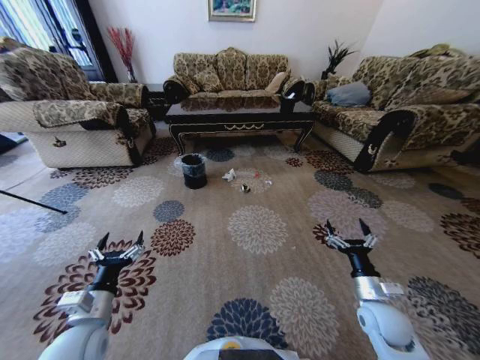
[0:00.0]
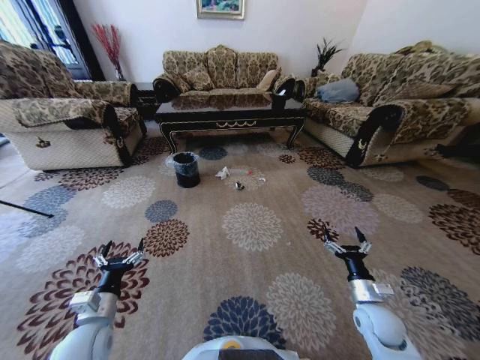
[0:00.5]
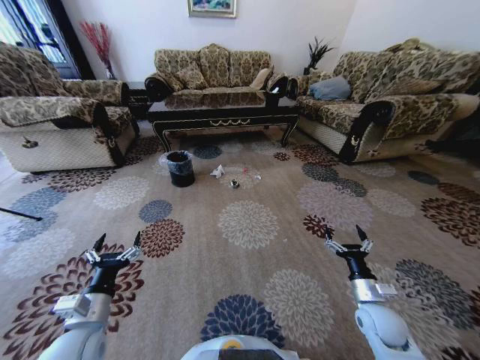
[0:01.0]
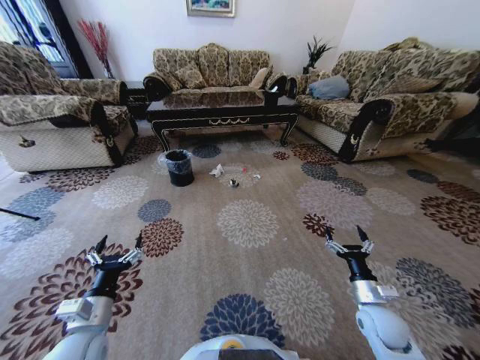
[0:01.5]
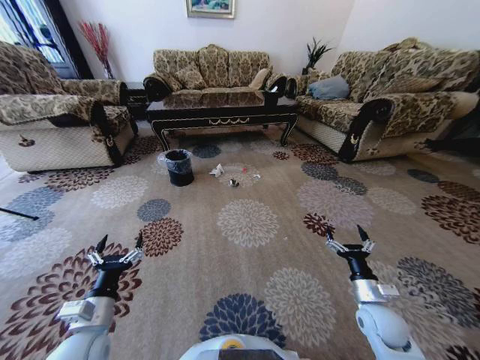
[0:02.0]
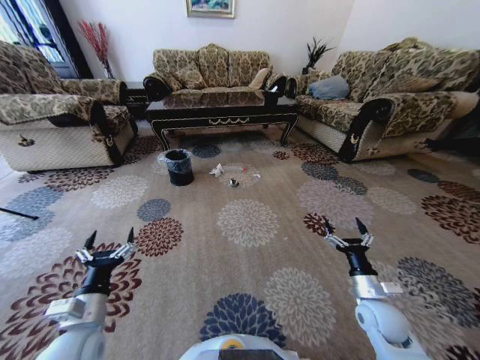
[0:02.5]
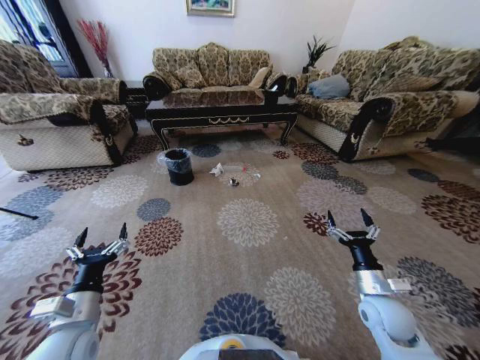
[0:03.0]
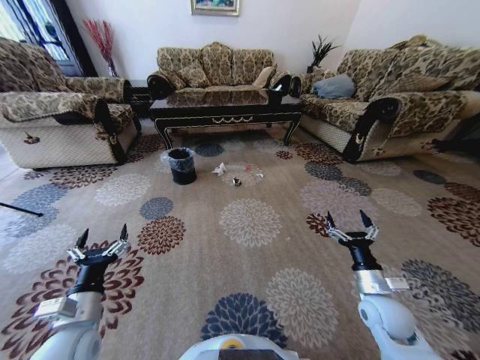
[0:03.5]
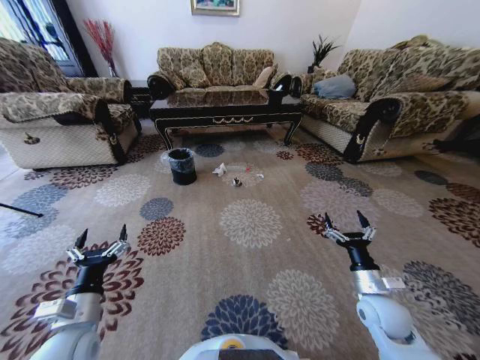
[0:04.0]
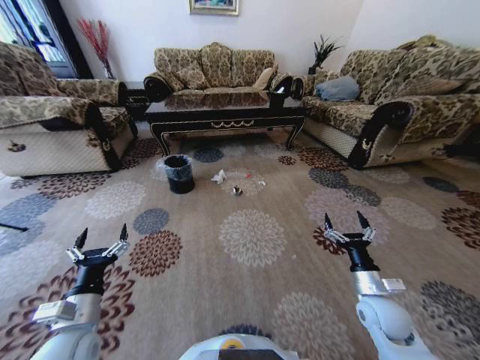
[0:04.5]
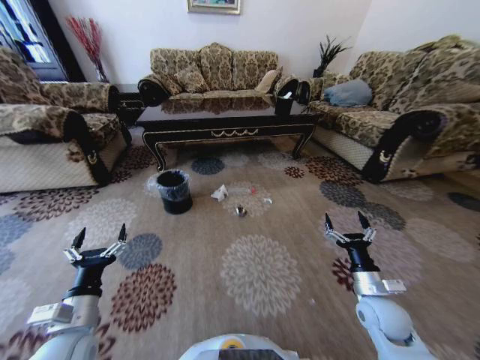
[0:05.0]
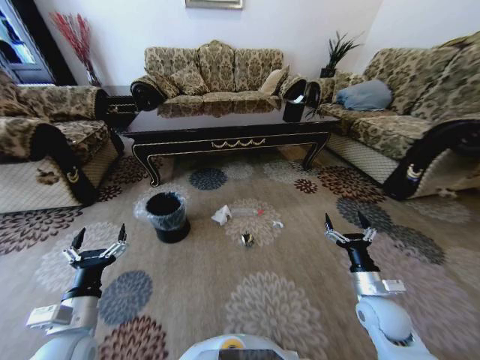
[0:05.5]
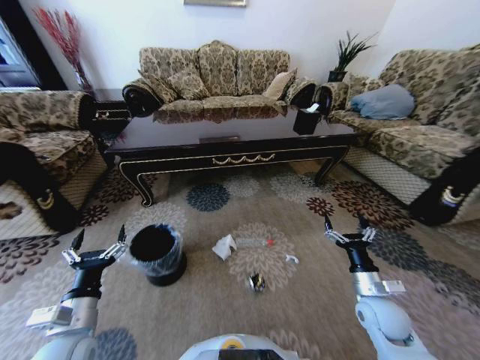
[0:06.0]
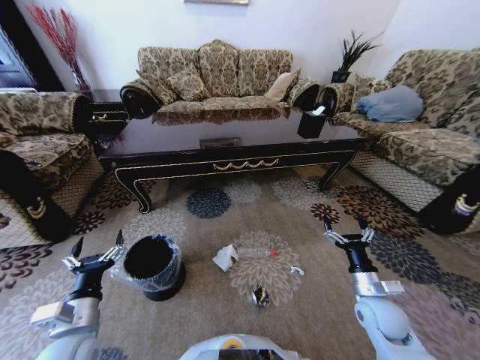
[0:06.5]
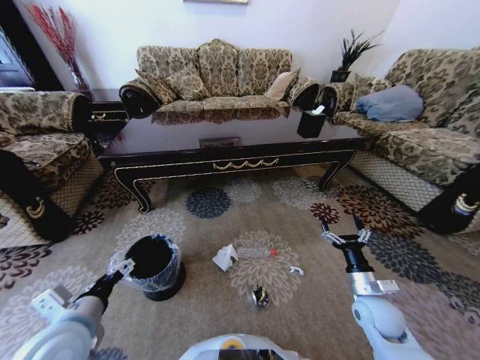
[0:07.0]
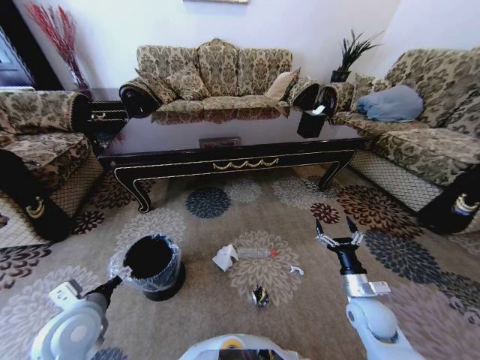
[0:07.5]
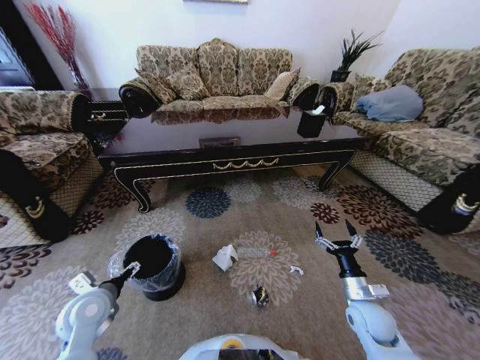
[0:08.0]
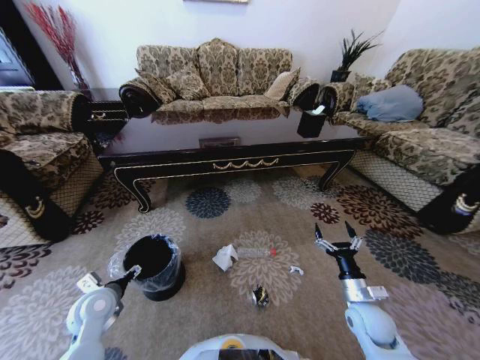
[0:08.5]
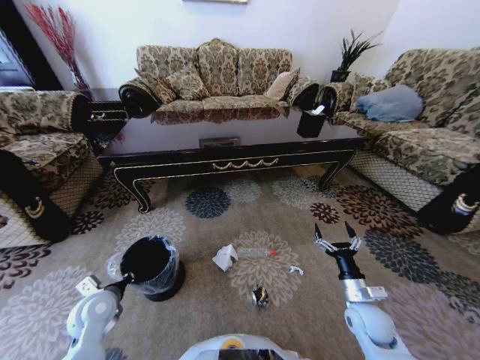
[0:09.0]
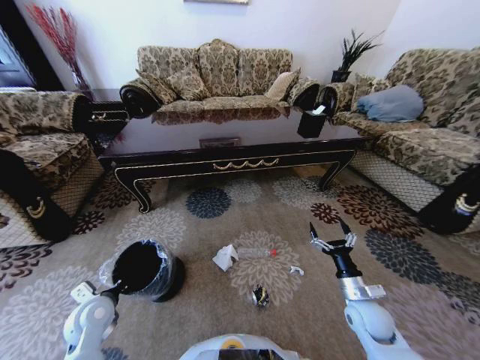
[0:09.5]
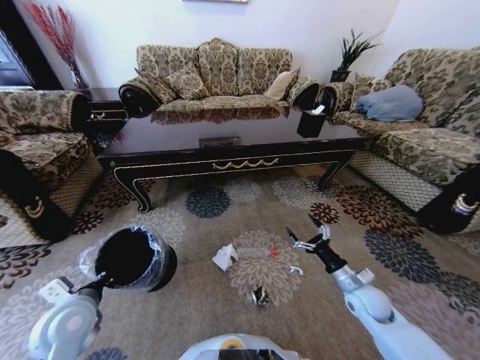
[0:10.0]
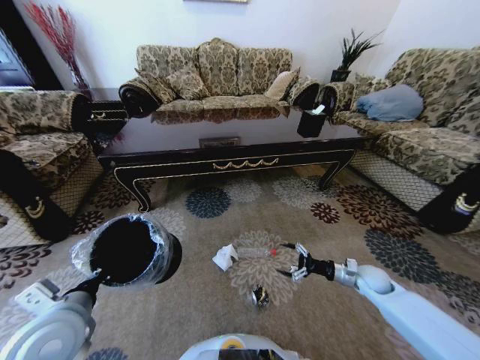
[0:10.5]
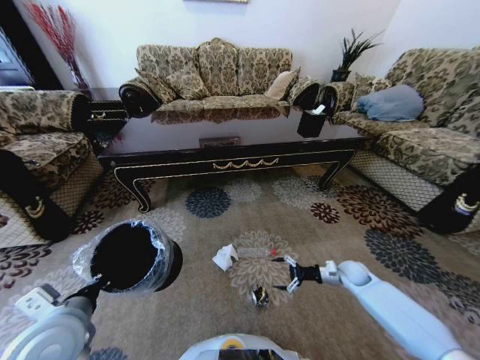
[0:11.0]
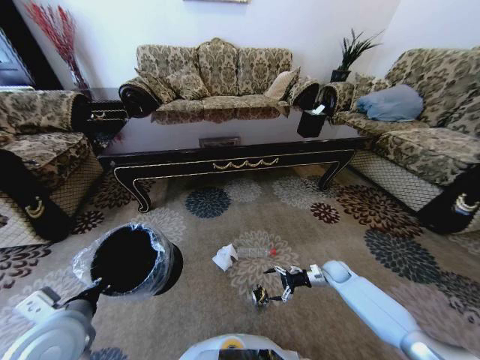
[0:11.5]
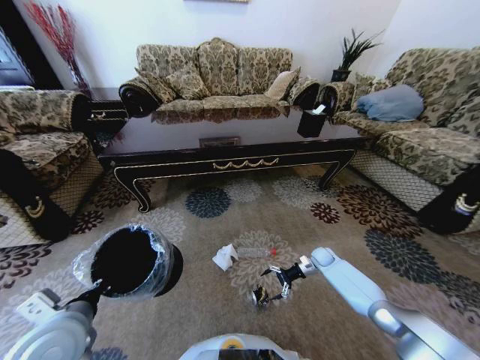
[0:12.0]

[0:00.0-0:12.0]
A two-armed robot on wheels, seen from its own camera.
Task of the whole recording: Move to the front of the table and pick up the trash from the floor, then place it into the trash bin.
0:06.0 to 0:08.0: The left gripper heads forward, covering roughly 10 cm.
0:08.0 to 0:10.0: The left gripper changes place by approximately 5 cm, and closes its fingers.
0:10.0 to 0:12.0: The left gripper shifts by some 5 cm. Meanwhile the right gripper shifts some 25 cm forward and downward.

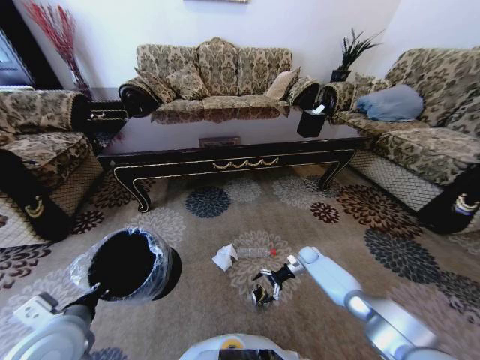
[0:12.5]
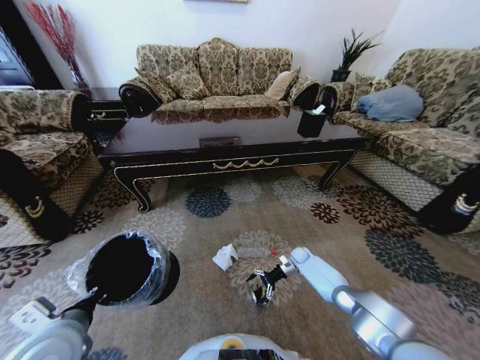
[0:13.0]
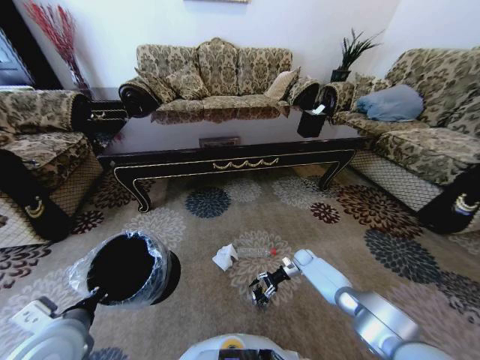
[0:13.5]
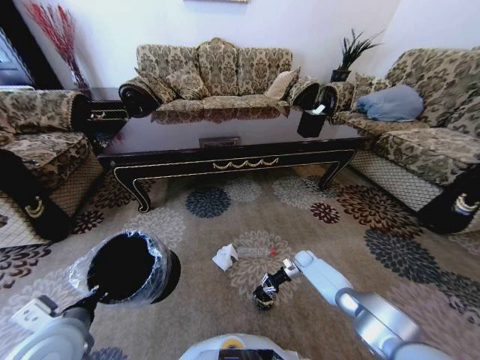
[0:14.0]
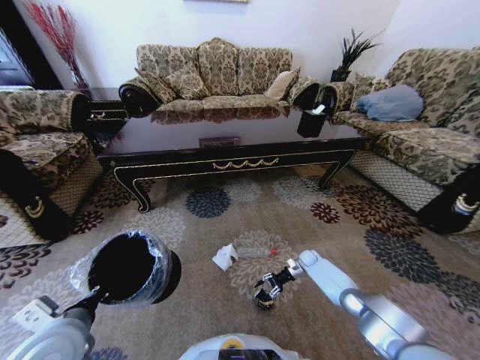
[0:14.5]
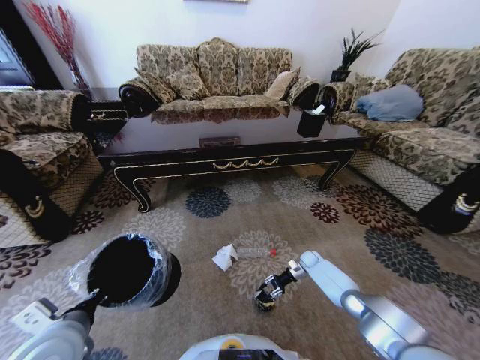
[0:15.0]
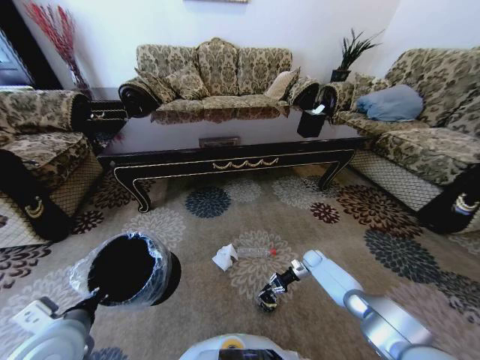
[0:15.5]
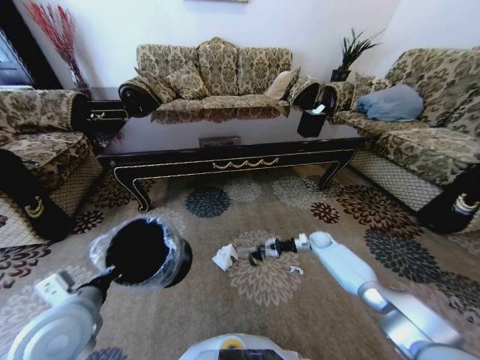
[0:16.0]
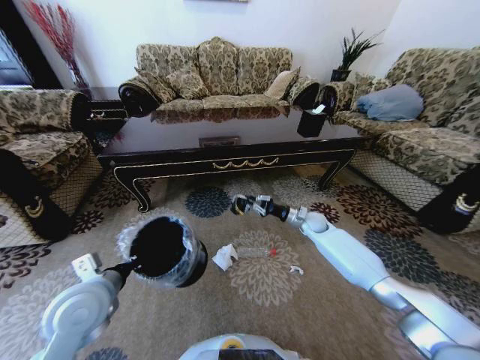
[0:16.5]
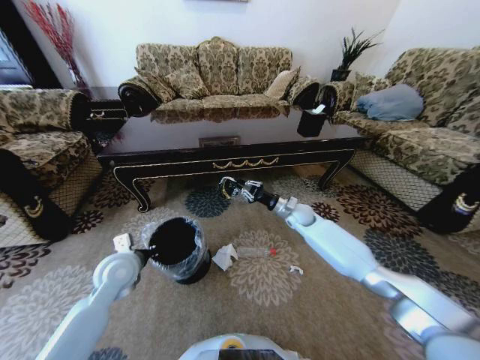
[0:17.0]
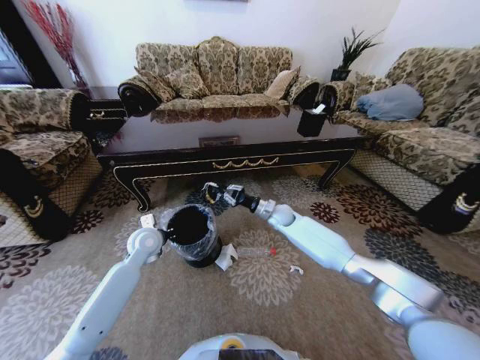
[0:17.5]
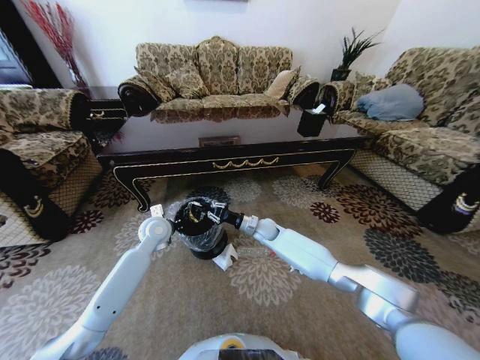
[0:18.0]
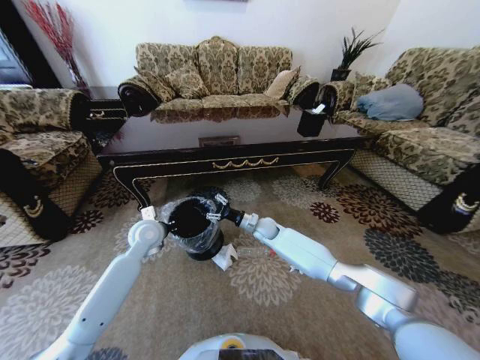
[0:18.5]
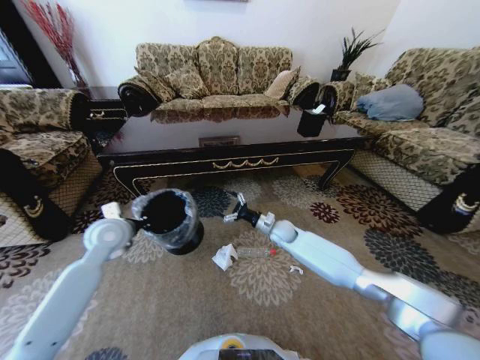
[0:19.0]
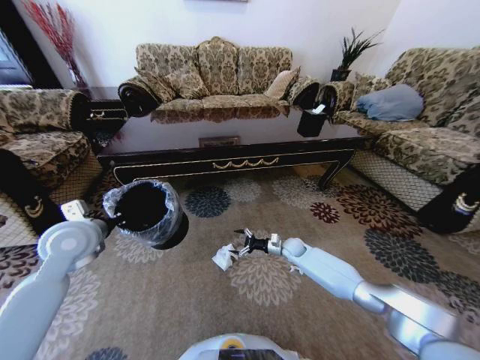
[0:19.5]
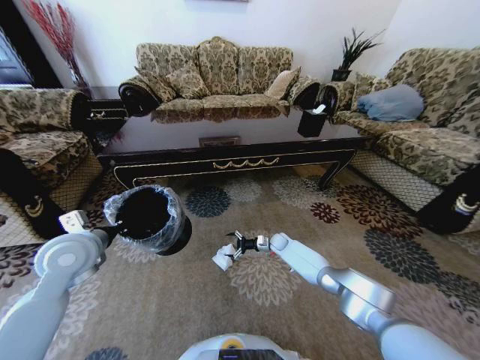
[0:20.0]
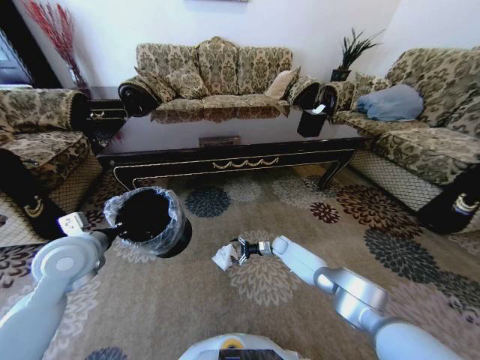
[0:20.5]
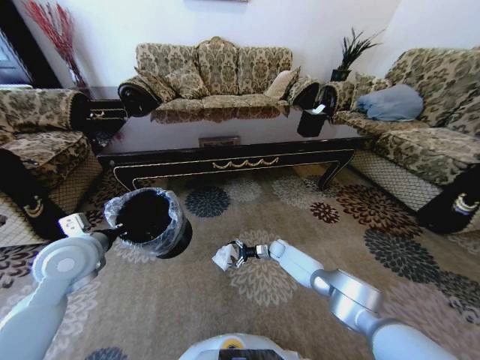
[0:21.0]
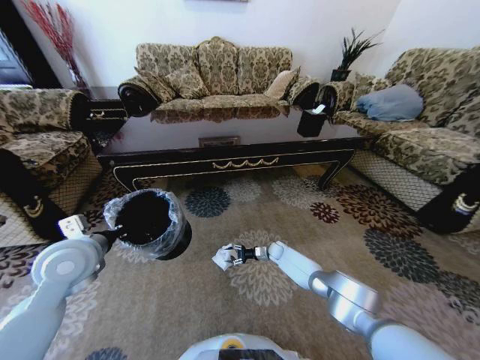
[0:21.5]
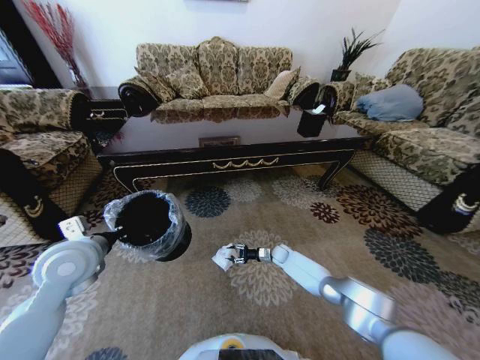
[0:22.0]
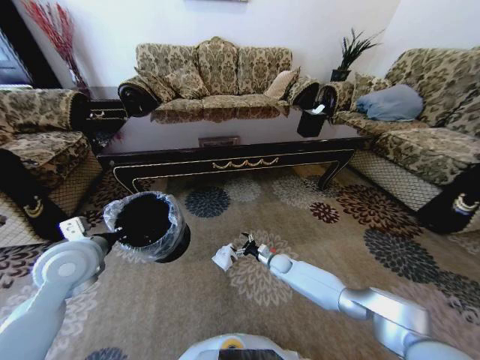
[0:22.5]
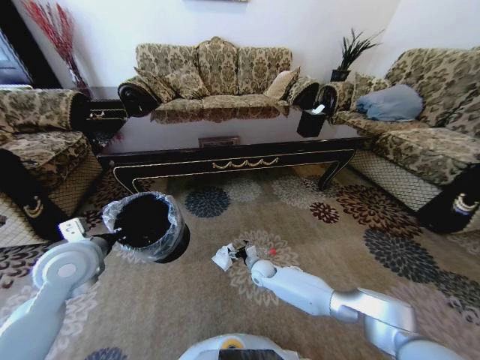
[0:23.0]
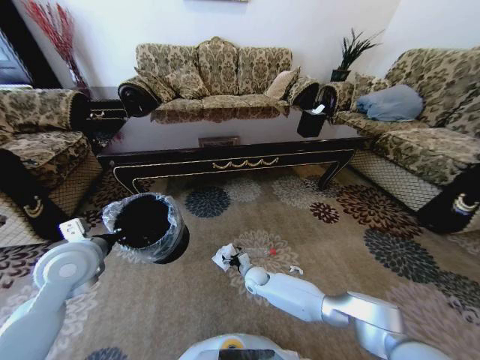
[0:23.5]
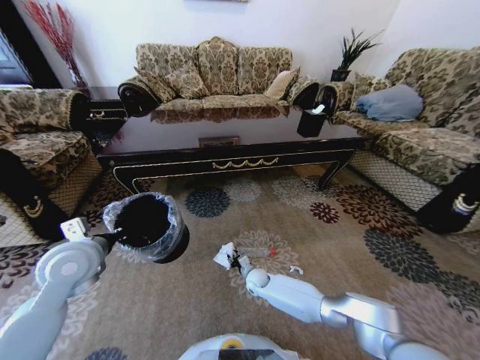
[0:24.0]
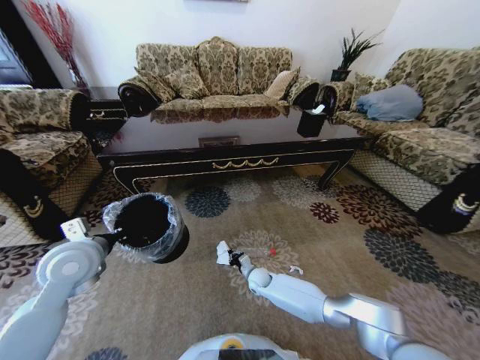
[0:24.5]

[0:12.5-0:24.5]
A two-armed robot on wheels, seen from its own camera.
Task of the whole recording: Move to the front of the table and pick up the trash from the floor, then place it into the trash bin.
0:12.5 to 0:14.5: The right gripper closes up.
0:14.5 to 0:16.5: The right gripper is displaced upward by some 20 cm, and closes. The left gripper shifts roughly 5 cm forward.
0:16.5 to 0:18.5: The left gripper shifts some 20 cm forward. The right gripper is displaced to the left by approximately 20 cm, and opens.
0:18.5 to 0:20.5: The right gripper moves downward and to the right, about 20 cm, while the left gripper shifts about 15 cm backward, upward and to the left.
0:20.5 to 0:22.5: The right gripper goes approximately 10 cm backward, and closes and opens again.
0:22.5 to 0:24.5: The right gripper goes approximately 10 cm to the left and backward, and closes.

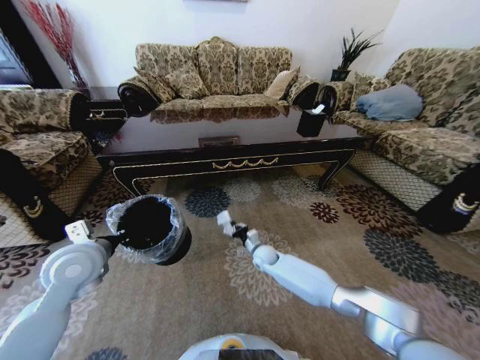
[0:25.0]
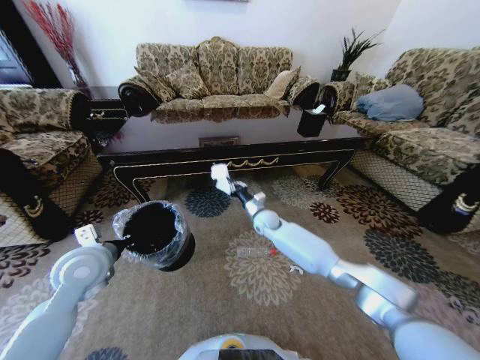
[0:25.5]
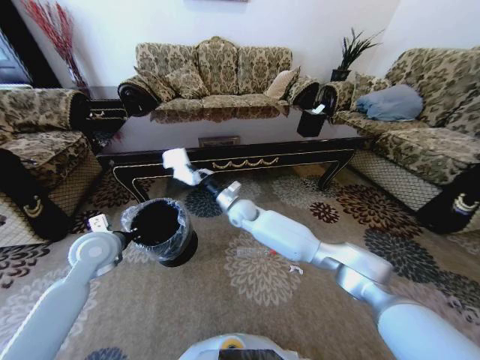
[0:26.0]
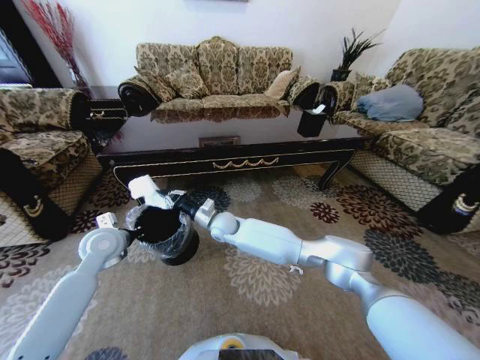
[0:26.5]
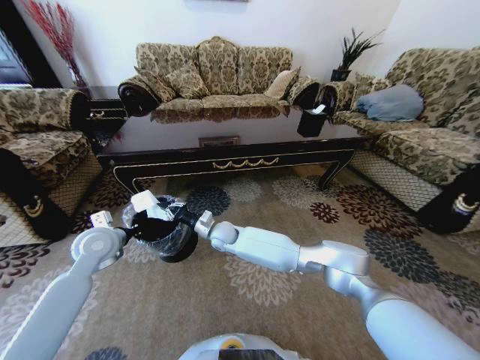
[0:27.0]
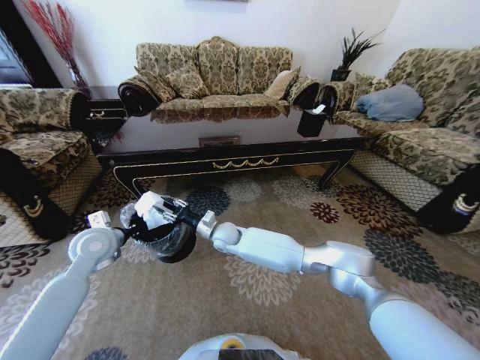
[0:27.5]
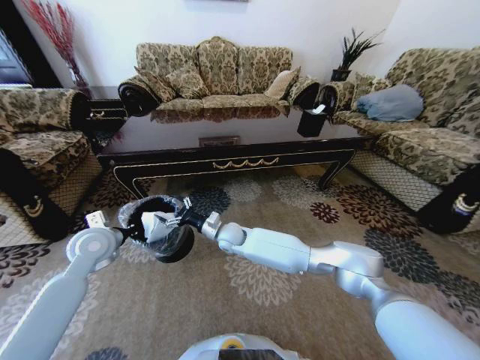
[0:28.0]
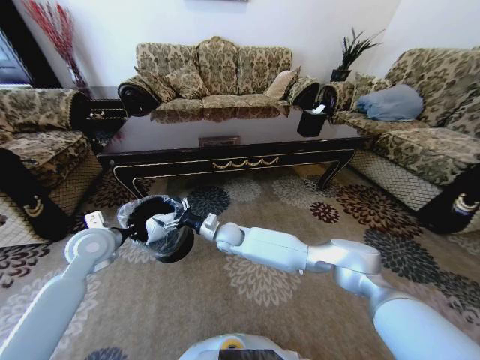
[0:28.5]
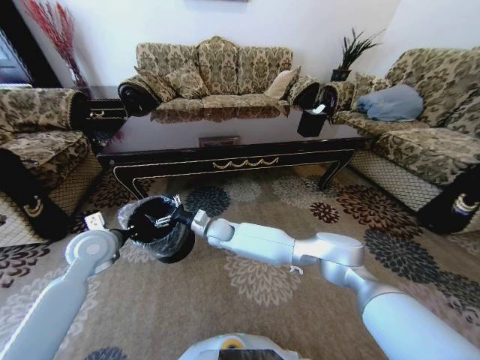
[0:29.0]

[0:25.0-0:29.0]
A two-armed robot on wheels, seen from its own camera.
Task of the whole recording: Move to the front of the table and pick up the trash from the floor, then place it into the trash bin.
0:25.0 to 0:27.0: The right gripper heads to the left and upward, covering about 20 cm; the left gripper is displaced forward by approximately 5 cm.
0:27.0 to 0:29.0: The right gripper opens its fingers.
